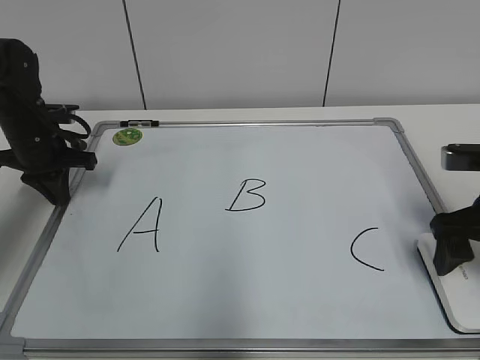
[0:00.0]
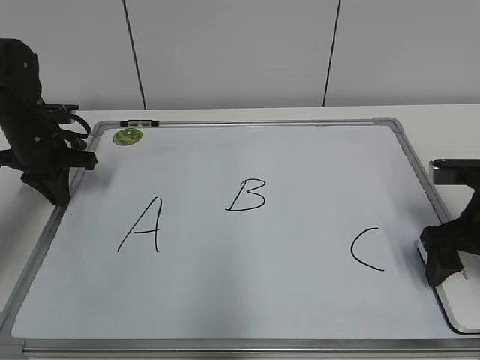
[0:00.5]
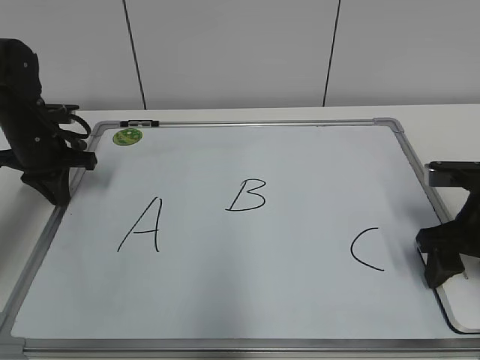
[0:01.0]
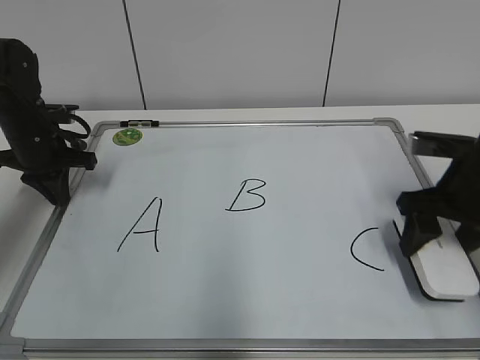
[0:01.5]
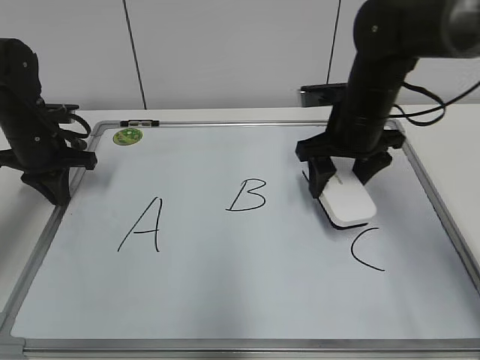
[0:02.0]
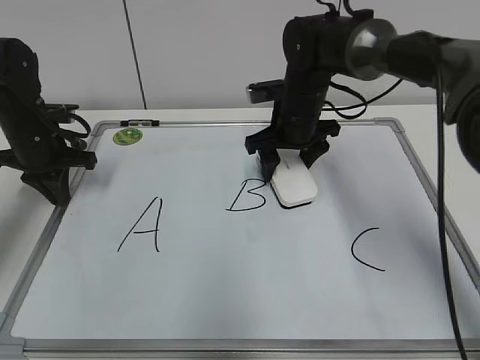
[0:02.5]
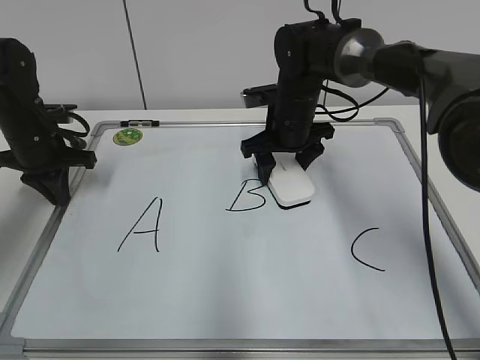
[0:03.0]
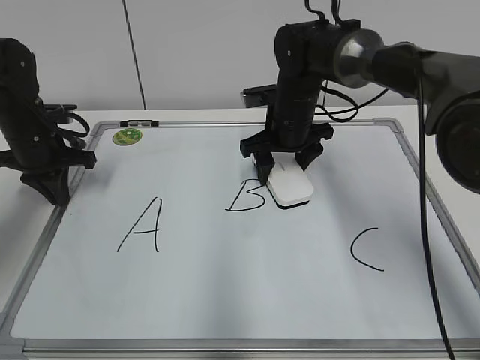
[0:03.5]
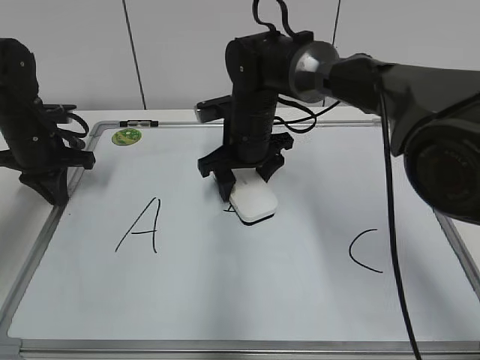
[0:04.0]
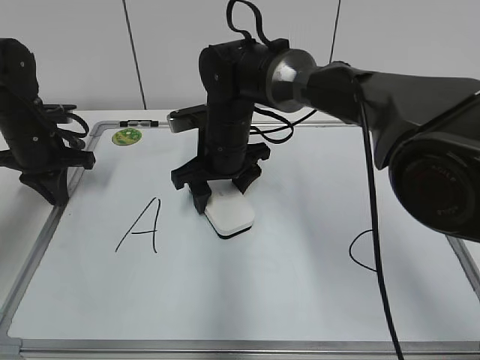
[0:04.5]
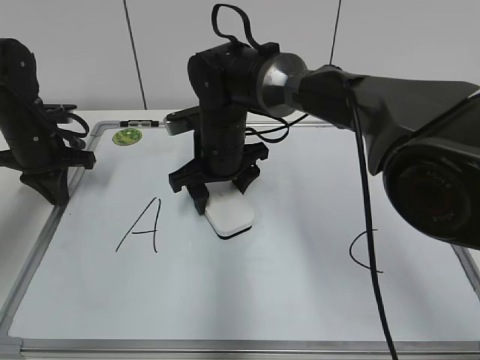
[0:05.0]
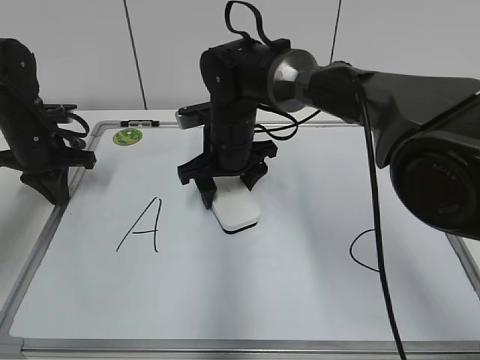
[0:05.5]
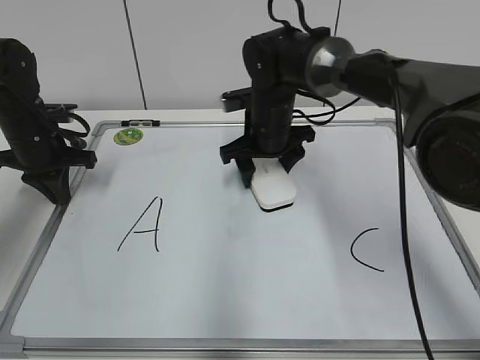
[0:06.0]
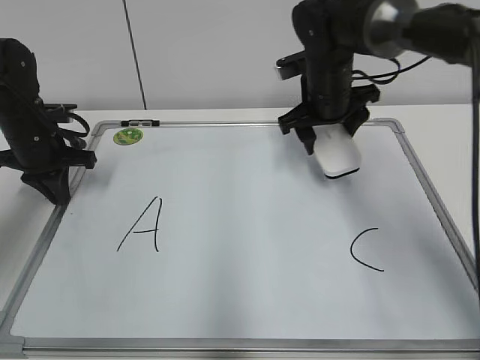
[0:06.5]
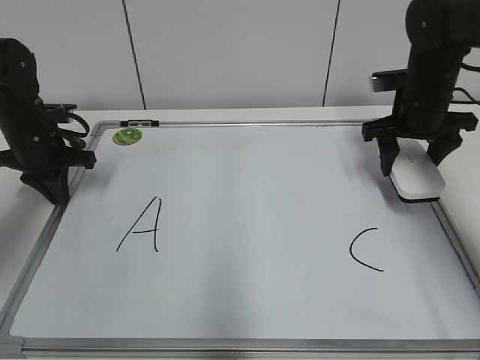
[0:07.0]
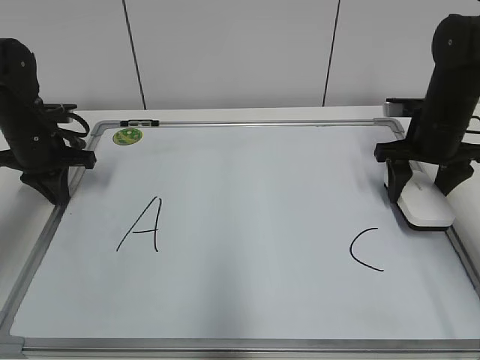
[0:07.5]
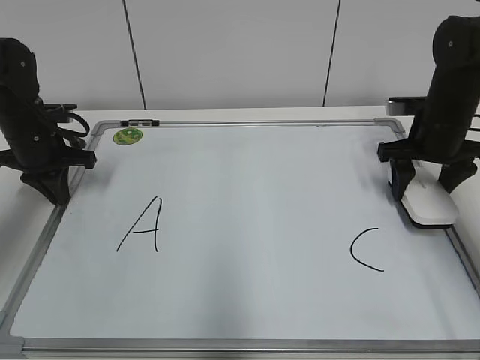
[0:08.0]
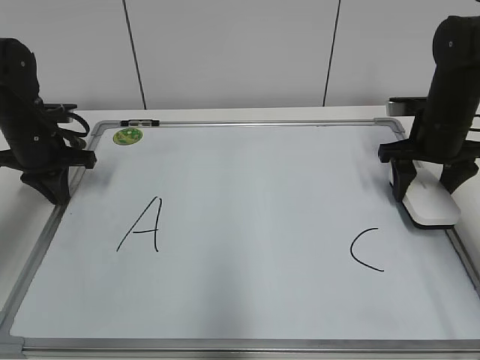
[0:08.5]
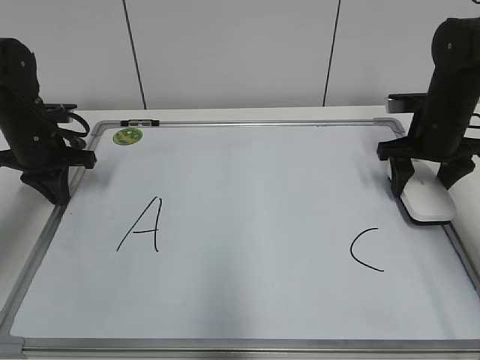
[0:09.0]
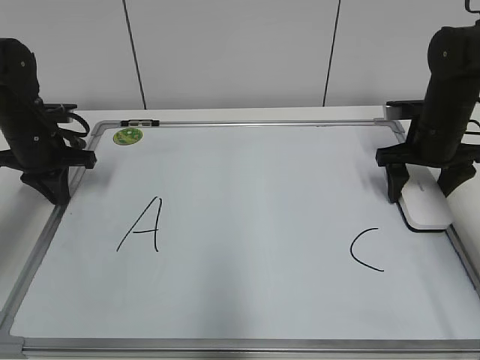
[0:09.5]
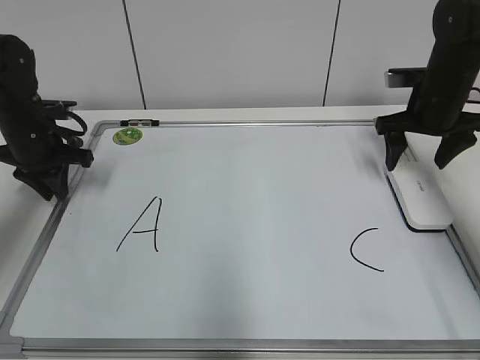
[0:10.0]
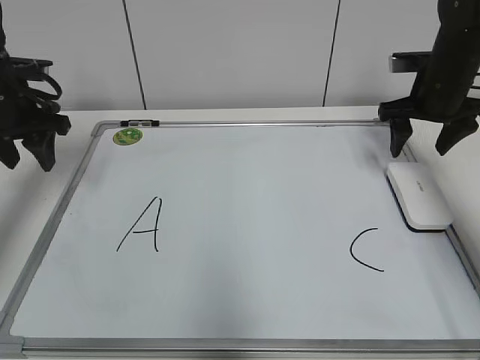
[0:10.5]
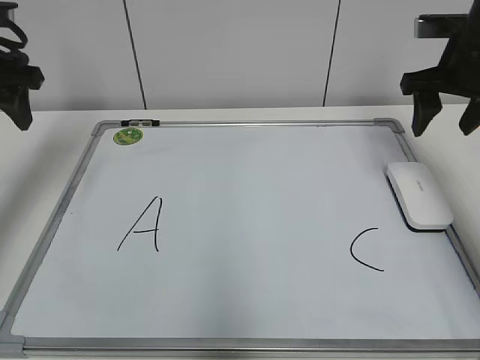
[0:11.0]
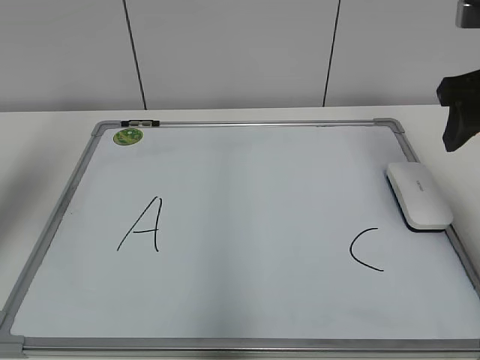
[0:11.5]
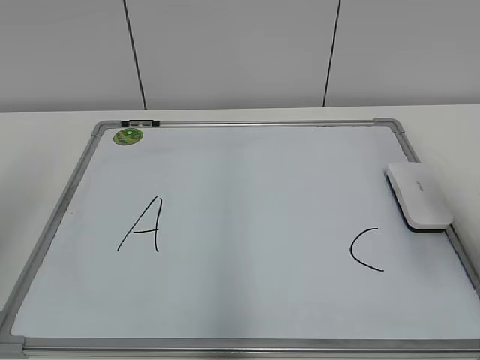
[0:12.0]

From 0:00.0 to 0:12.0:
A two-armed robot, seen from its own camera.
Task of the whole recording: pick up the eraser on the blackboard and erase the letter "B".
Step, from 0:00.0 to 0:01.0: Grab the eraser with your right hand.
Step, from 0:01.5 to 0:05.5: Erase the letter B with your right hand.
From 0:00.0 to 0:02.0: The right gripper moves forward and to the left, about 20 cm, and closes.
From 0:02.0 to 0:04.0: The right gripper goes about 15 cm to the left.
From 0:04.0 to 0:06.0: The right gripper moves about 5 cm.
From 0:06.0 to 0:08.0: The right gripper heads to the right, covering about 20 cm.
From 0:08.0 to 0:10.0: The left gripper opens up. The right gripper opens its fingers.
From 0:10.0 to 0:12.0: The two grippers go about 30 cm backward and upward. The right gripper closes up; the left gripper opens its fingers.
